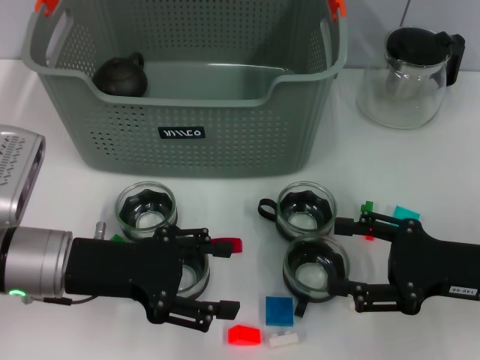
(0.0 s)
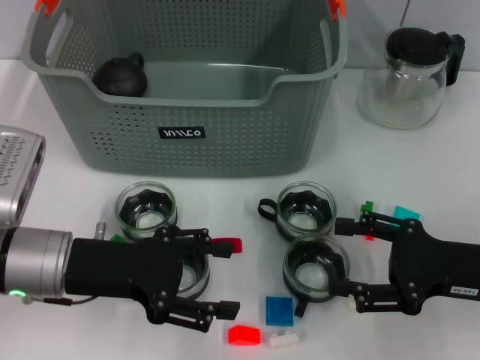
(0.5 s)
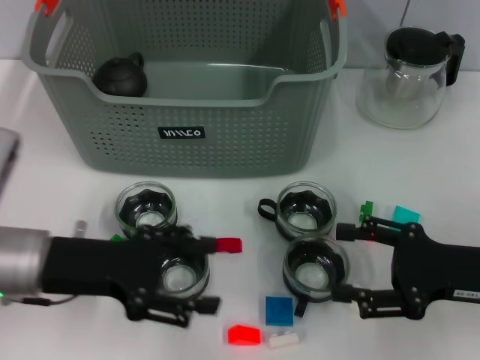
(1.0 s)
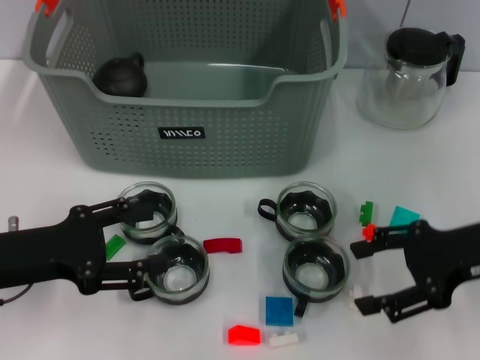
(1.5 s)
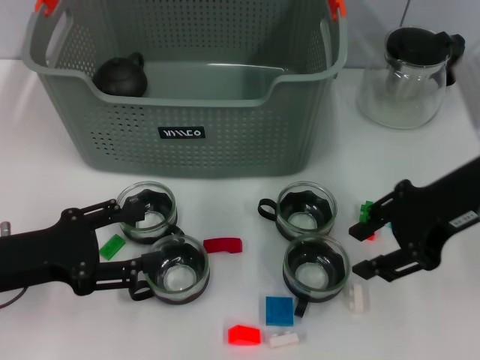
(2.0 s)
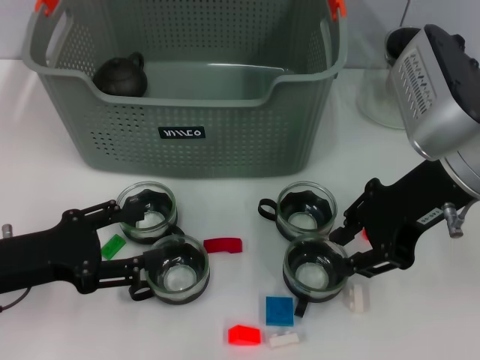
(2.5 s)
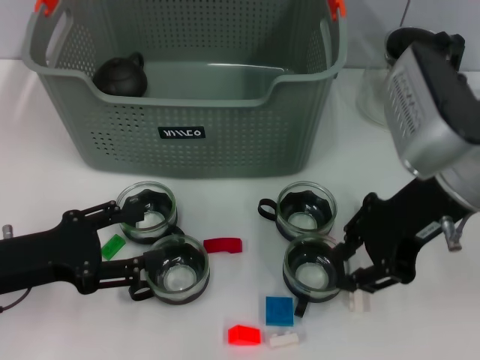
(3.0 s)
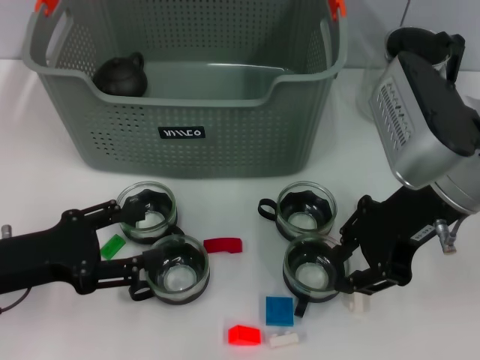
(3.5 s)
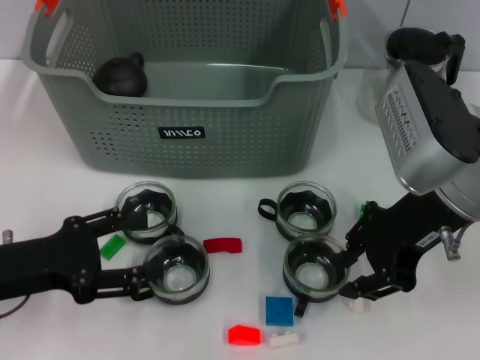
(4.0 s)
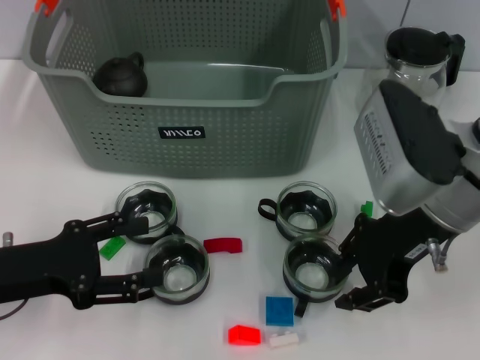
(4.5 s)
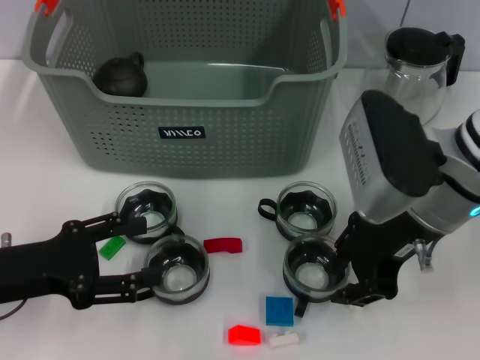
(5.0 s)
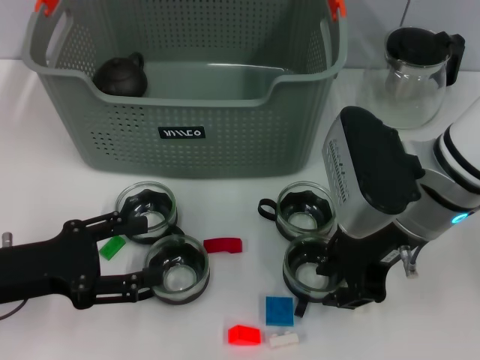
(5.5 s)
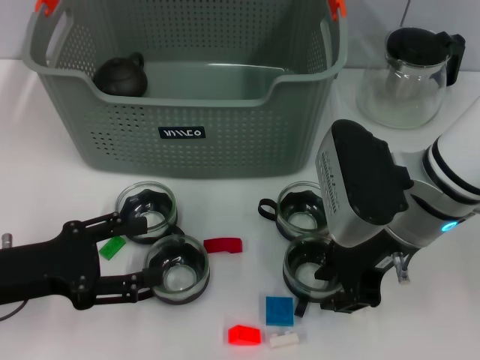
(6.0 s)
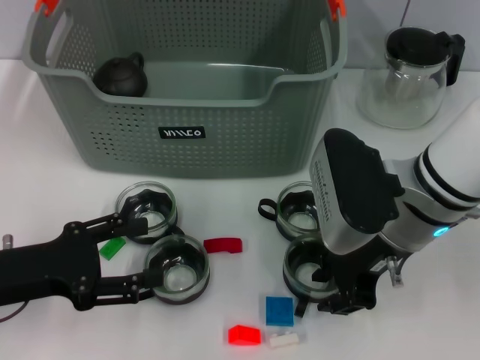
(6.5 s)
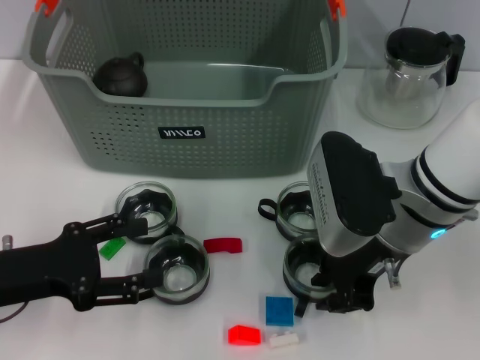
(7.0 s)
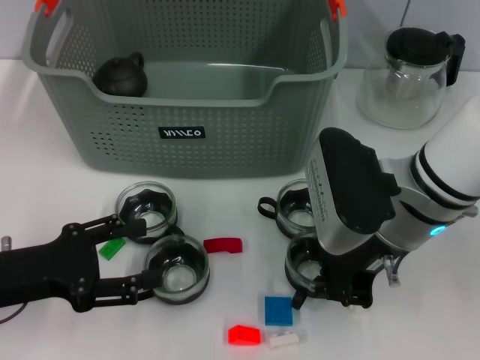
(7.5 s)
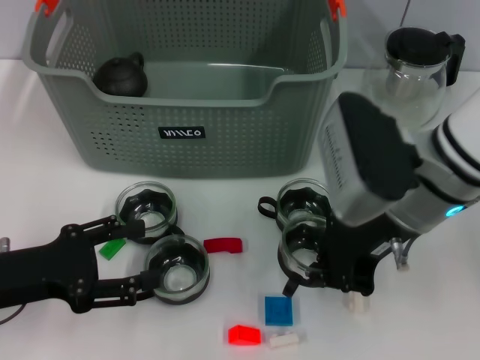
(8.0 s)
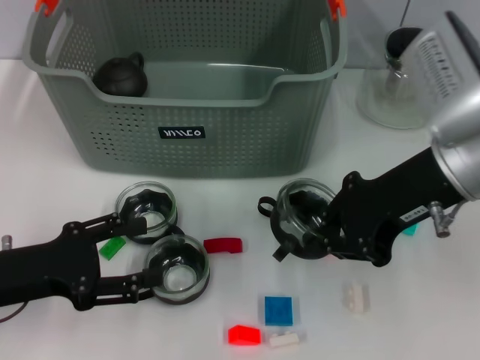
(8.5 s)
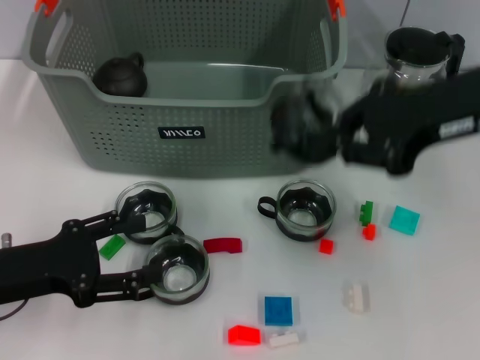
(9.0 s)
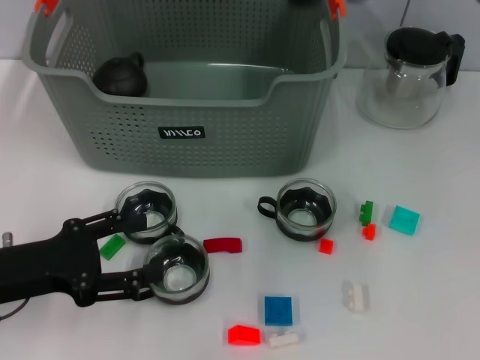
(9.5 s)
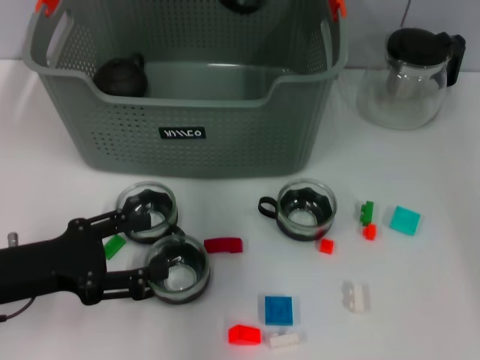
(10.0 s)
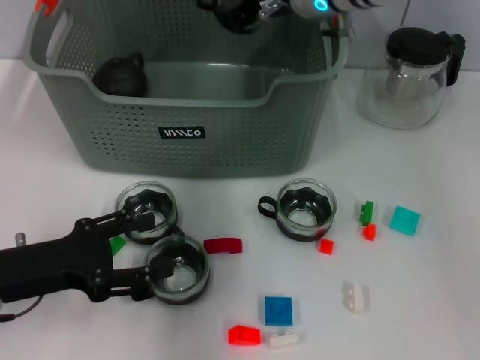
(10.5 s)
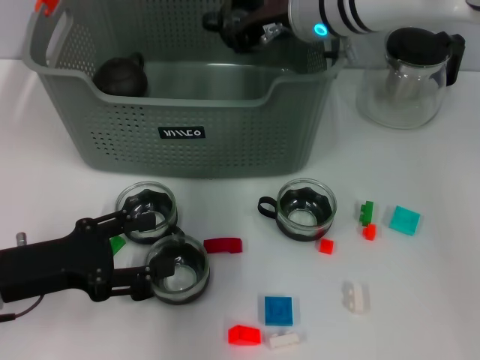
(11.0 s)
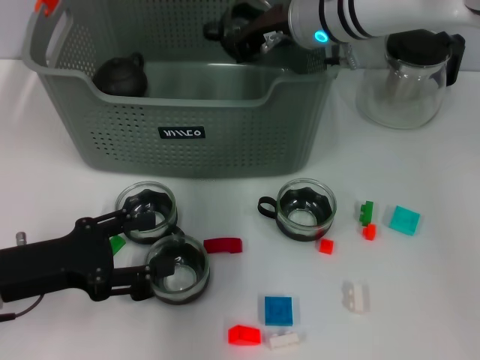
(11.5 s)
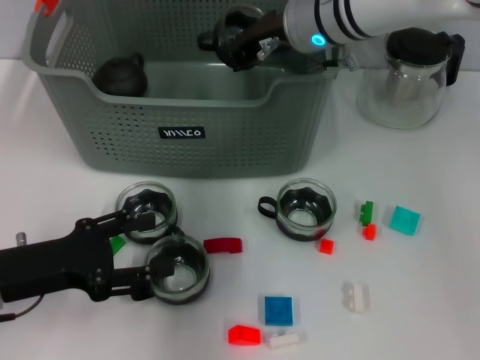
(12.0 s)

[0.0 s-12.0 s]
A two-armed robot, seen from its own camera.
Task of the whole recording: pick up the teacup on the table and place it into the storage bin, pick up the block on the table and place it into the storage bin.
Step, 0.0 to 7.0 s: Grasp the cup with right gripper.
0.0 to 2.0 s: The left gripper shifts about 5 cm to the left; the right gripper travels upward, forward and to the left by about 15 cm.
2.0 to 4.0 s: The right gripper closes its fingers.
4.0 to 6.0 s: The right gripper moves some 5 cm.
6.0 to 8.0 s: The right gripper closes up.
8.0 to 10.0 s: The right gripper travels forward and upward by about 20 cm.
10.0 to 12.0 s: The right gripper travels downward by roughly 10 cm.

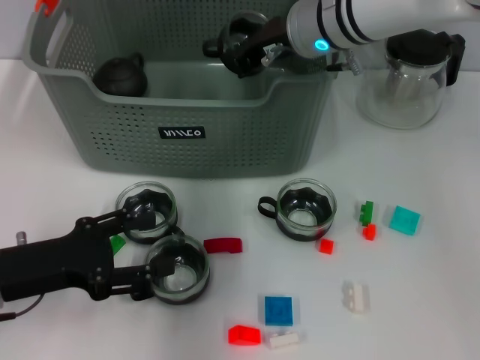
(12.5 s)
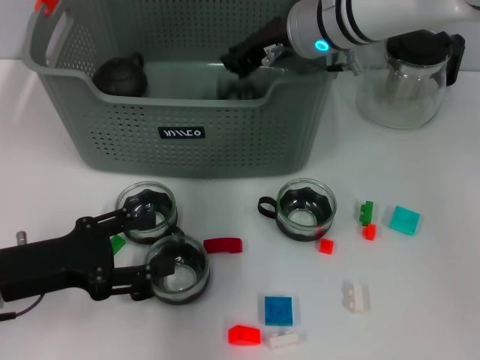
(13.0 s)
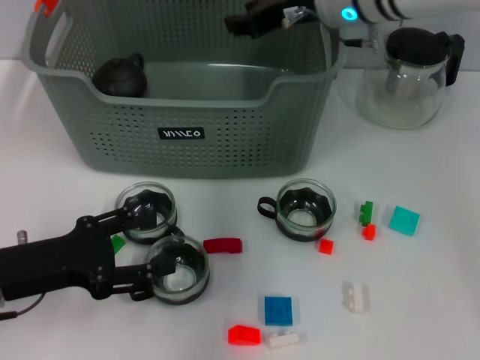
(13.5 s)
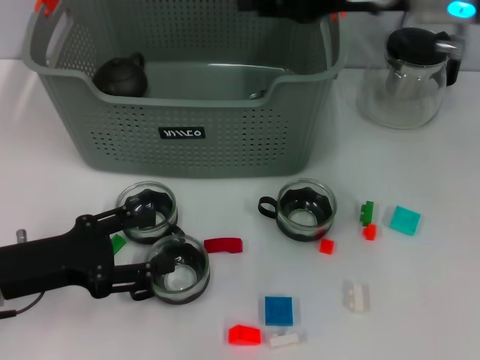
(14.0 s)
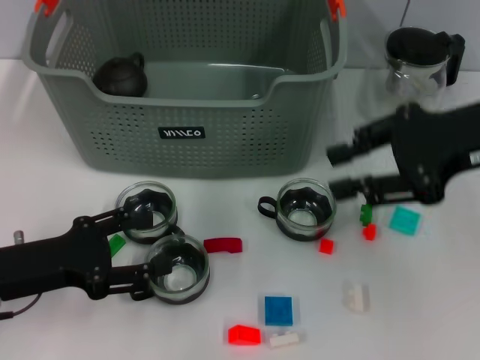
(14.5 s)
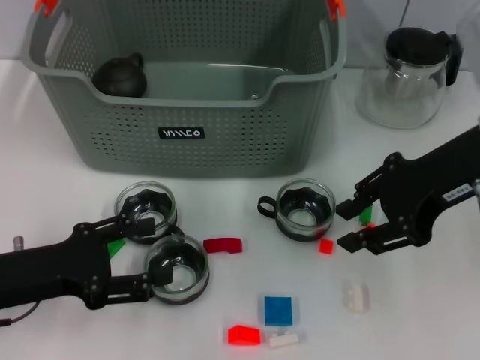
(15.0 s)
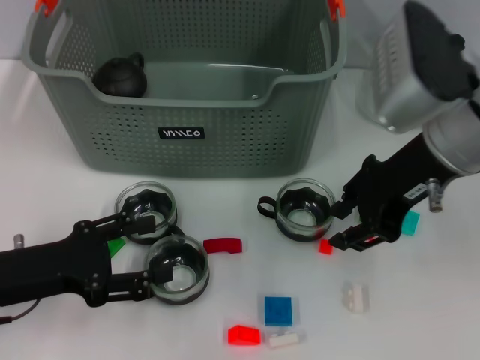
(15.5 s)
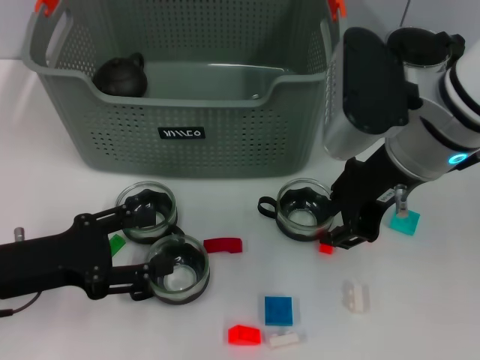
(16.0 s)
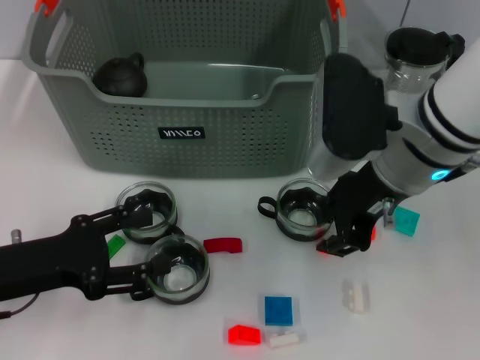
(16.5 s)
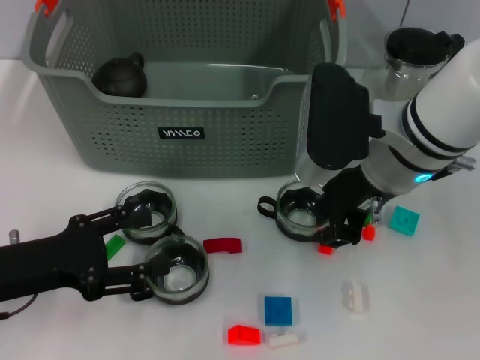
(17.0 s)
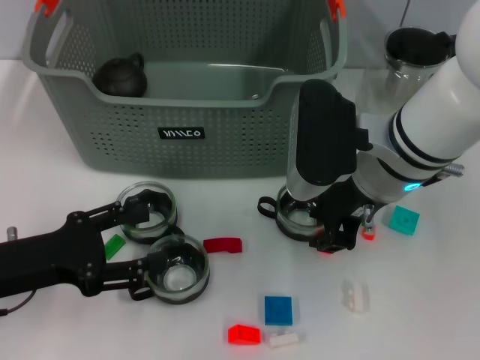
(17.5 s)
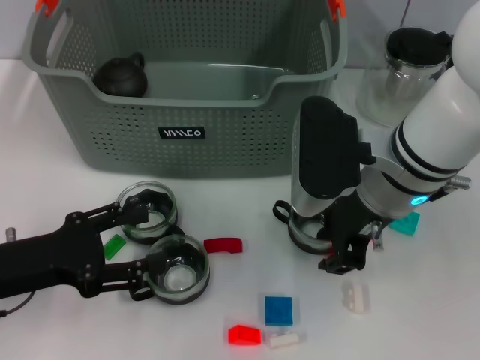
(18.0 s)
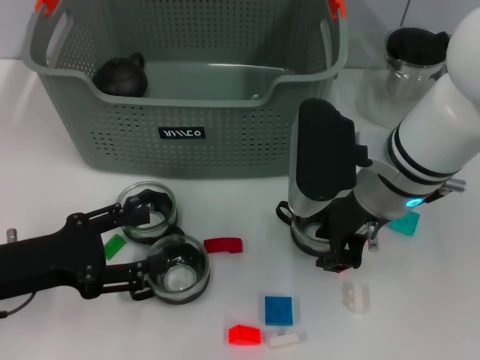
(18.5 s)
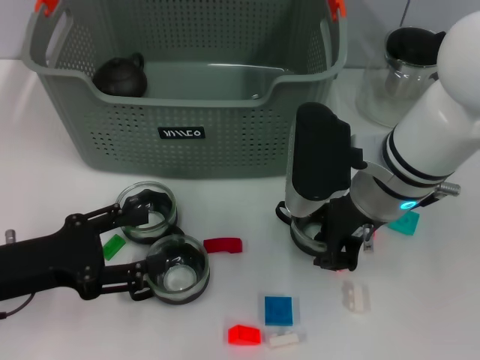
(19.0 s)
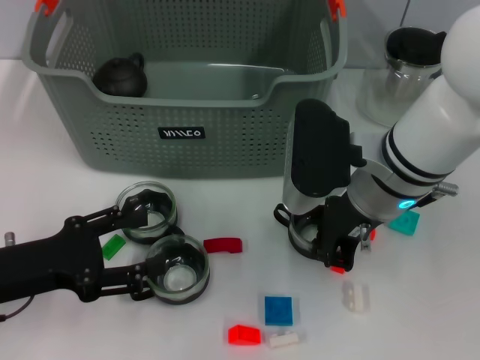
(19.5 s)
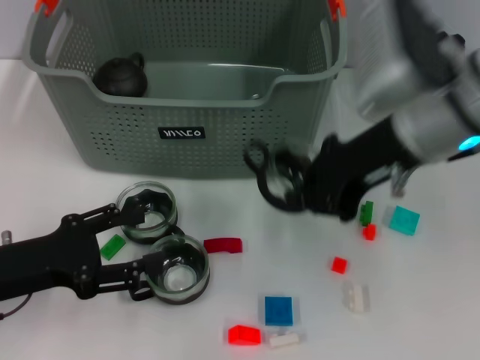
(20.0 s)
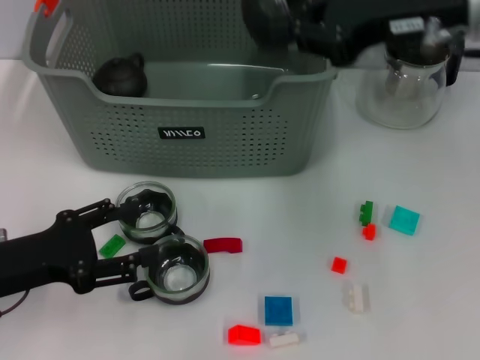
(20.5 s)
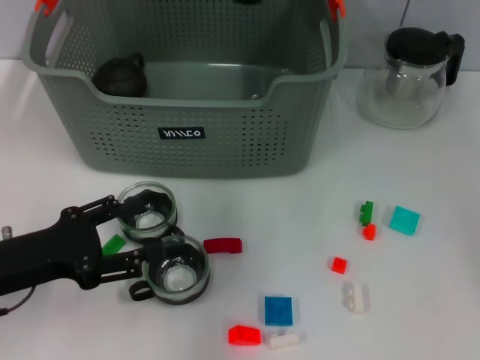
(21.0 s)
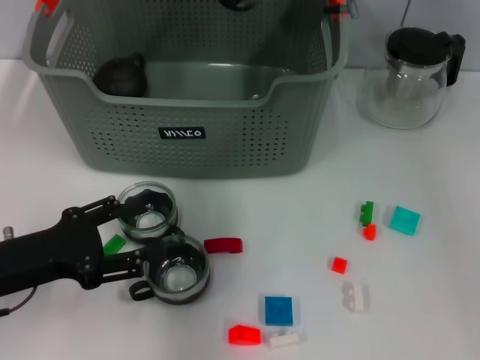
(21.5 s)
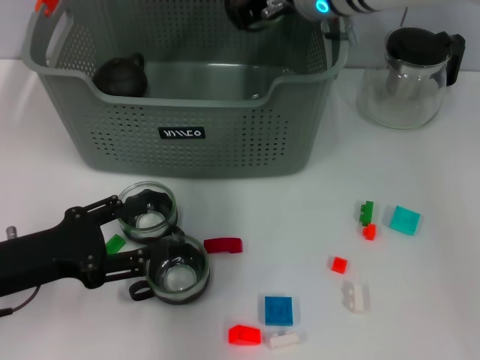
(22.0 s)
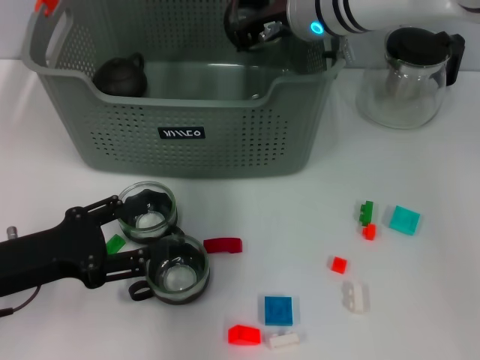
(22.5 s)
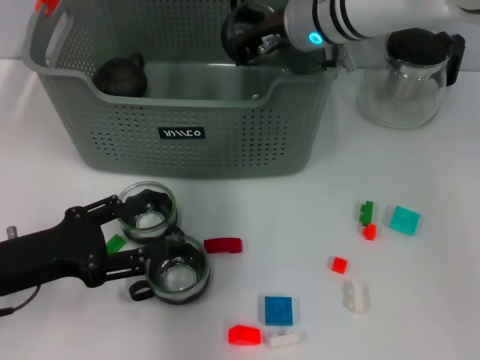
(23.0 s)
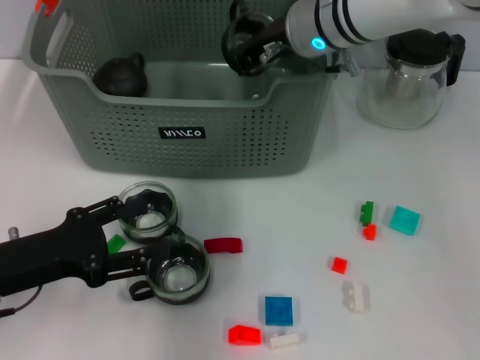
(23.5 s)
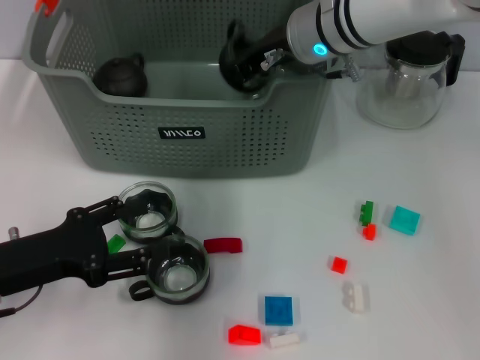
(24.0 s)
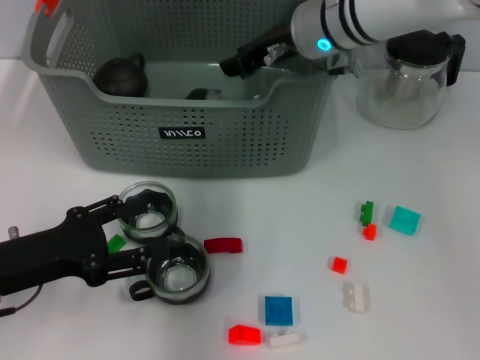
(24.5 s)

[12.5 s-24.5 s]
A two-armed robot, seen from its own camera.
Task of the whole recording: pick up the teacup on the table and place it into the storage bin, pick up the block on the table and place it into the storage bin.
Step, 14.0 to 19.0 s: Grasp the cup with right gripper.
12.5 to 14.5 s: The right gripper shifts some 20 cm to the right and backward, and opens up.
14.5 to 16.5 s: The right gripper is displaced to the left by about 10 cm.
16.5 to 18.5 s: The grippers stay close to where they were, moving slightly.
18.5 to 20.5 s: The right gripper moves upward and to the right, approximately 15 cm, and closes up.
20.5 to 22.5 s: The right gripper moves to the left, forward and downward, about 15 cm.
22.5 to 24.5 s: The grippers stay close to where they were, moving slightly.

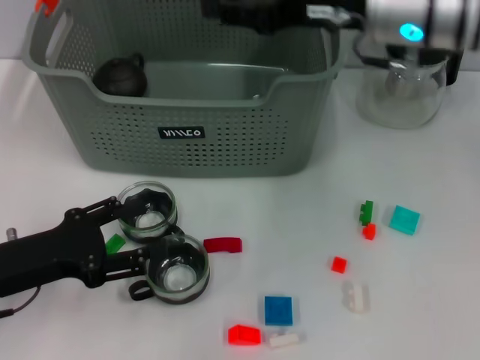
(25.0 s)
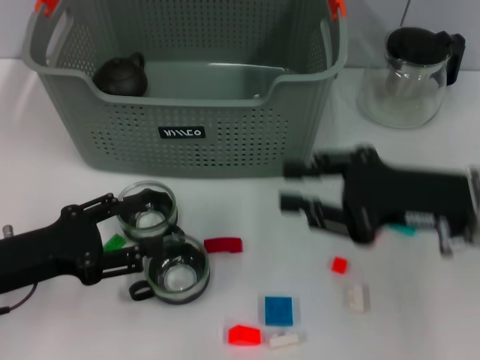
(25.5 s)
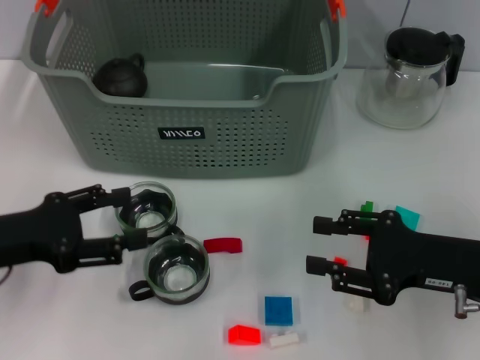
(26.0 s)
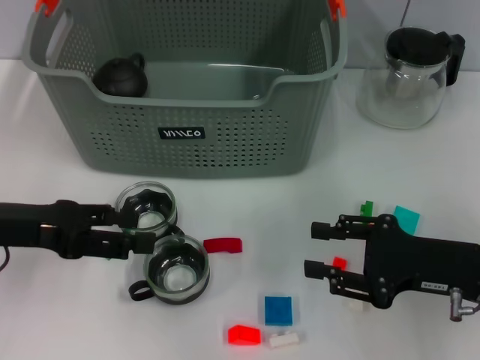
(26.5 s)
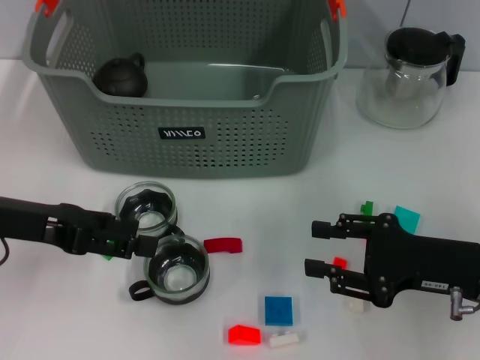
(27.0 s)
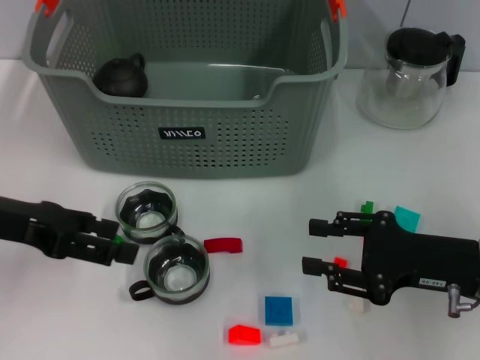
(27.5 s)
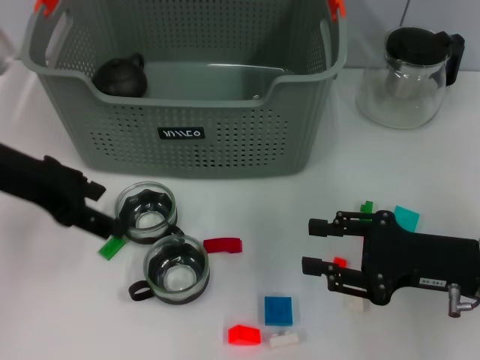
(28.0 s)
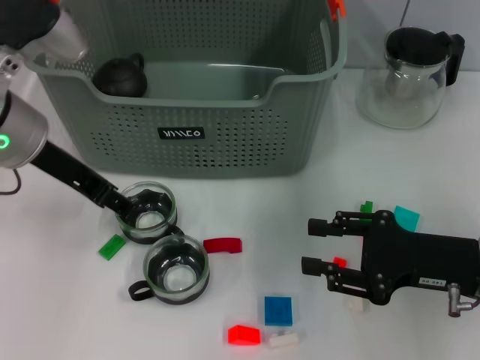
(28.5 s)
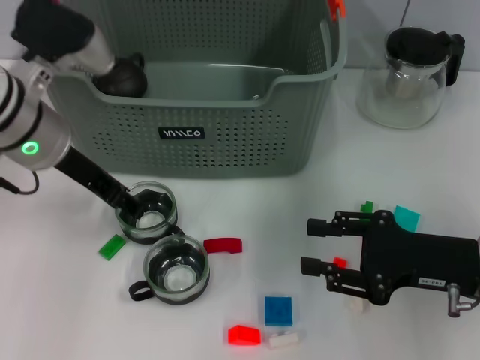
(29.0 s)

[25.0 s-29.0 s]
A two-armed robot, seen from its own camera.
Task of the whole recording: pick up the teacup on the table and place it into the storage bin, pick up the block on the table and place it into the storage bin.
25.0 to 27.0 s: The right gripper shifts some 25 cm backward, downward and to the right. Meanwhile the left gripper heads upward and forward, covering approximately 10 cm.
27.0 to 29.0 s: The left gripper heads to the right and forward, covering approximately 10 cm.
